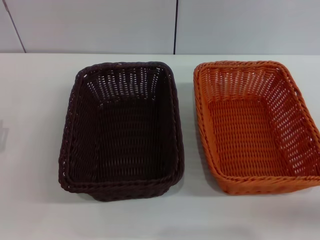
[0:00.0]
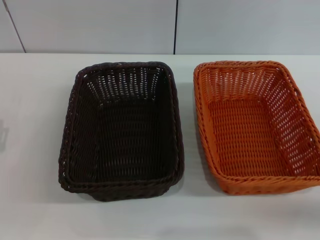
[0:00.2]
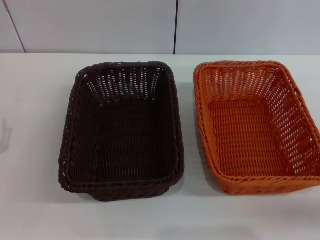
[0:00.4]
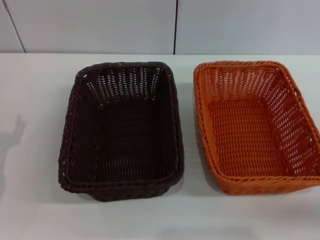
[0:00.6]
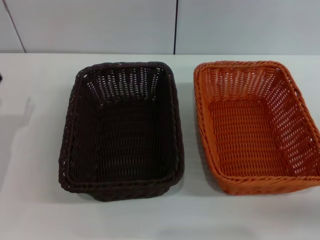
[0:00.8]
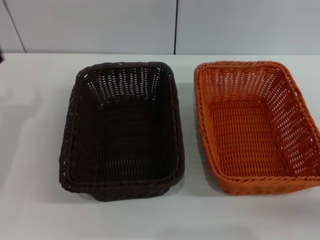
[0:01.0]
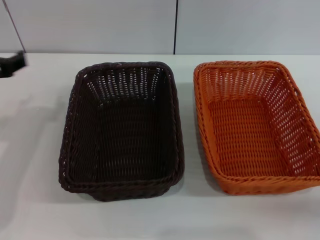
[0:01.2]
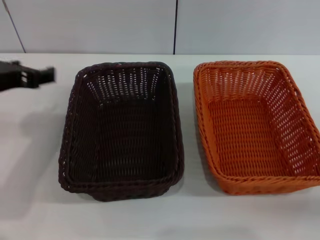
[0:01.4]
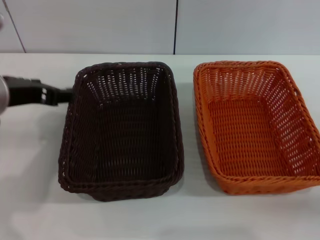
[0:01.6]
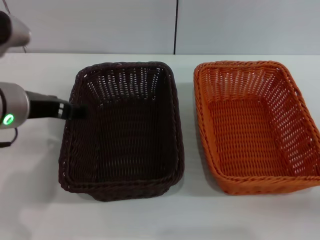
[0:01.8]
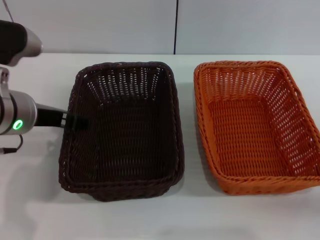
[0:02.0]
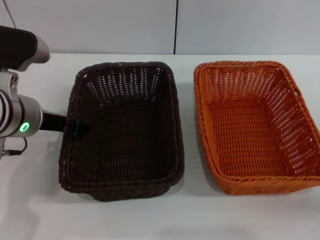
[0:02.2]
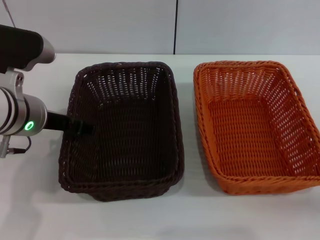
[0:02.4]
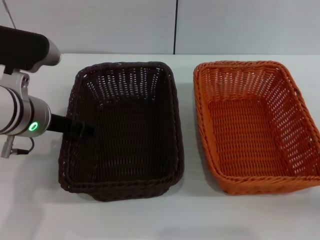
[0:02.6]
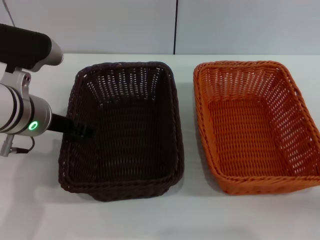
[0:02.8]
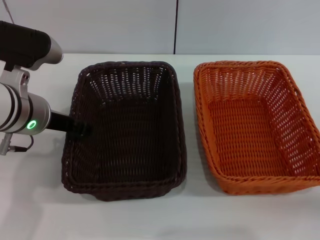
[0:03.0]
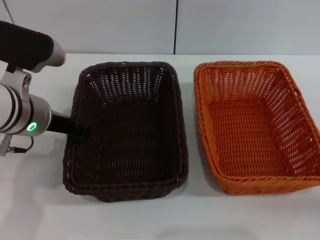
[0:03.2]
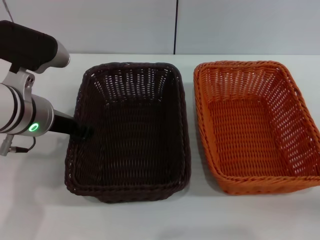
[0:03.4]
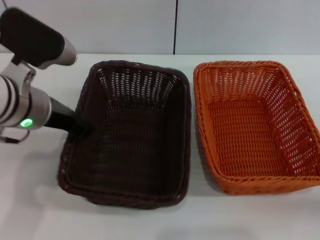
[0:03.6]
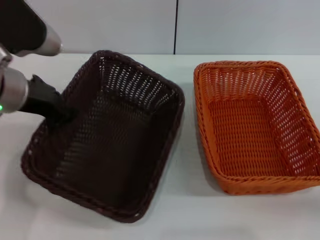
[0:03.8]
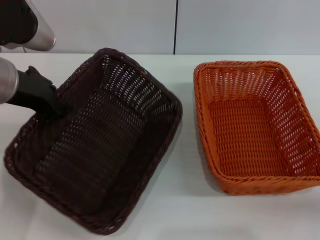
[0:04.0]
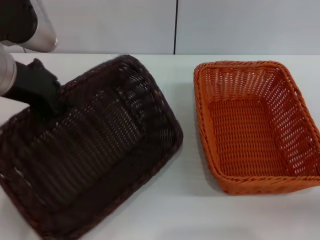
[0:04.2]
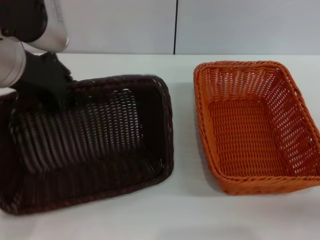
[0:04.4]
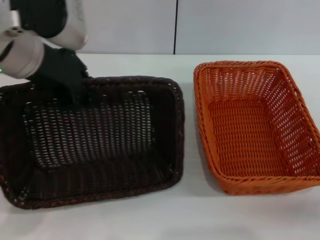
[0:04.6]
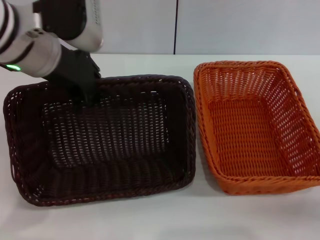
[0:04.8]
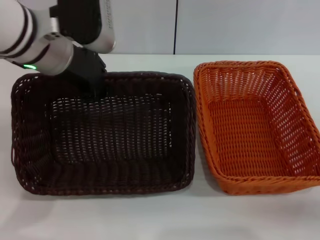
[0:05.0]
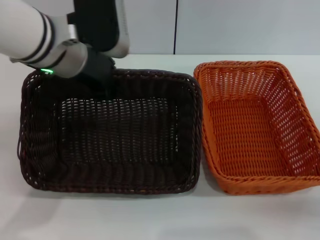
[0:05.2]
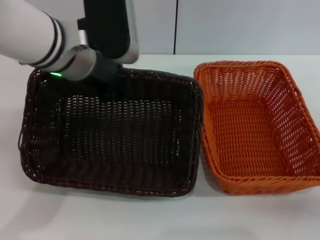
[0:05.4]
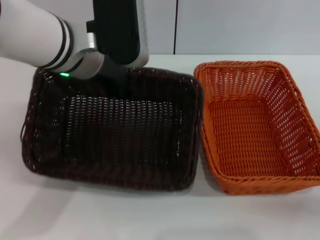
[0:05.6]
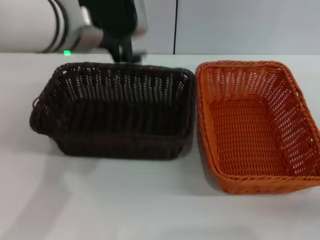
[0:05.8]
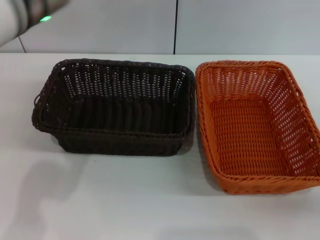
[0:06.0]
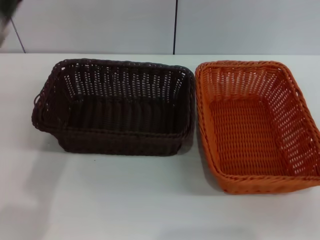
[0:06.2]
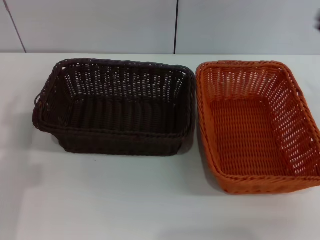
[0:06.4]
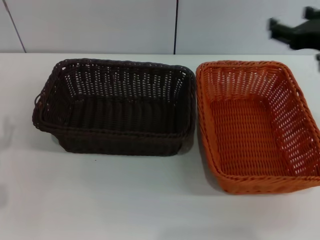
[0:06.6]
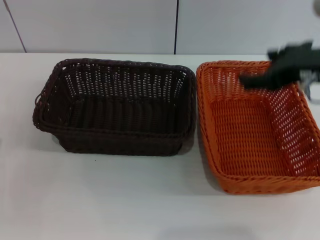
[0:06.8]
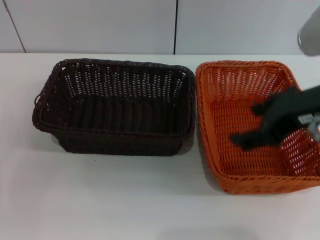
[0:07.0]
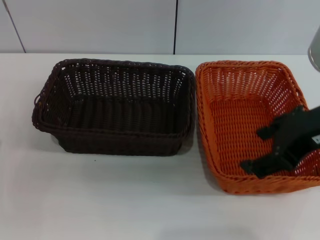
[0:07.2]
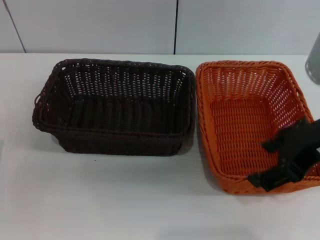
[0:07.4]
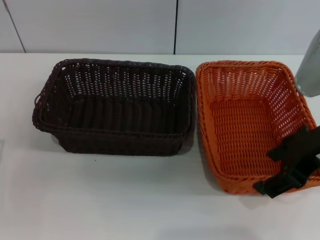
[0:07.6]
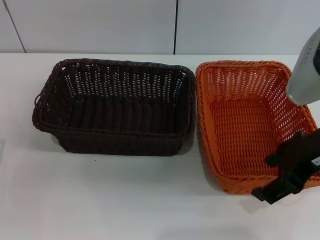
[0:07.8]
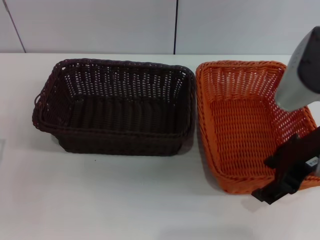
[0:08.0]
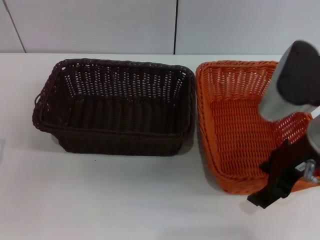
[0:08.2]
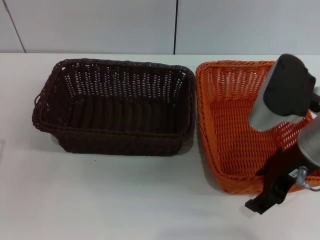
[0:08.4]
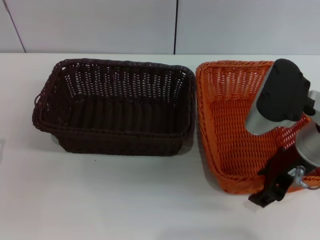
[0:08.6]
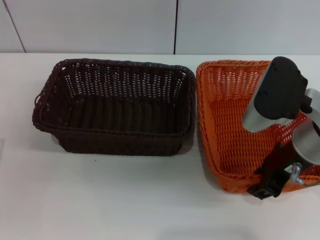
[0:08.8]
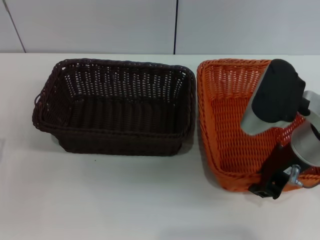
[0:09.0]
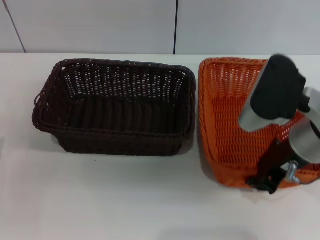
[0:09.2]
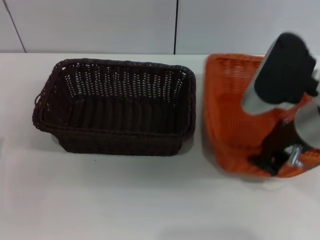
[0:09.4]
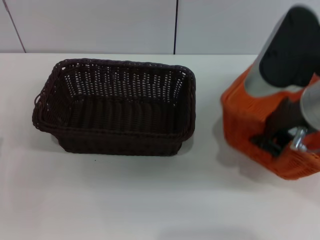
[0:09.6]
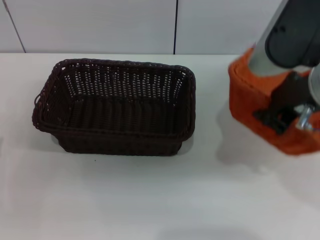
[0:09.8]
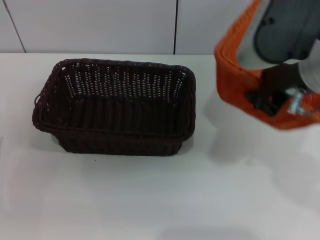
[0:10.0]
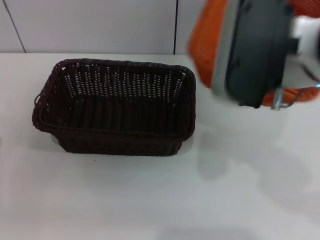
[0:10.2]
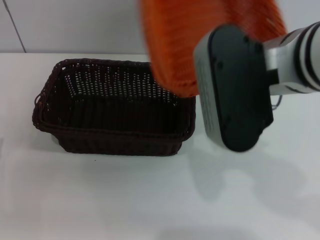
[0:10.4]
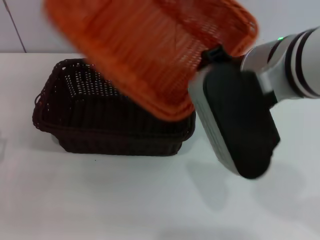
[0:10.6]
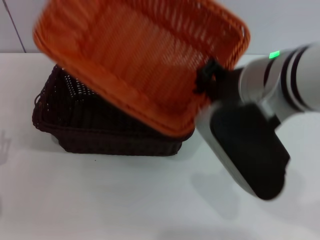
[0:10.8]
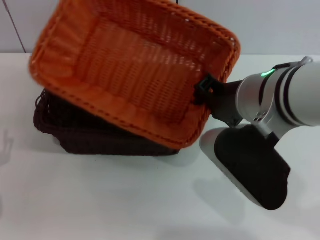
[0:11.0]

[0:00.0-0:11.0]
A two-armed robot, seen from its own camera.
Step, 0:00.0 to 0:03.8: Pick up the dark basket with the left gripper.
Step, 0:04.0 to 0:05.6: Place the dark basket in the center of view with the left gripper.
Step, 0:05.8 to 0:09.8: Pick up the light basket with the right gripper.
0:00.0 to 0:01.6: The left gripper shifts some 20 cm upward and to the right.
0:01.6 to 0:03.2: The left gripper heads downward, covering some 5 cm, and closes its fingers.
0:03.2 to 0:04.8: The left gripper travels upward by some 10 cm.
0:04.8 to 0:06.2: The right gripper goes roughly 5 cm upward, while the left gripper travels backward and to the left by roughly 10 cm, and opens its fingers.
0:06.2 to 0:07.8: The right gripper heads upward and to the left, covering about 20 cm; the left gripper heads downward, to the left and backward, covering approximately 20 cm.
0:07.8 to 0:09.4: The right gripper closes its fingers.
0:09.4 to 0:11.0: The right gripper goes some 5 cm to the left.

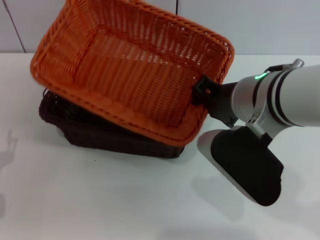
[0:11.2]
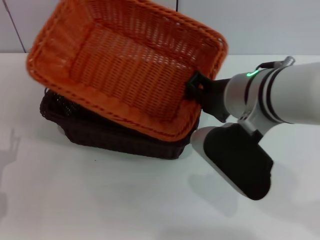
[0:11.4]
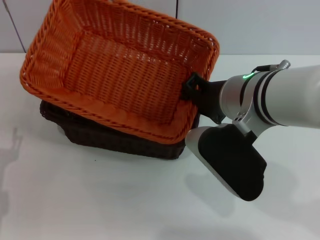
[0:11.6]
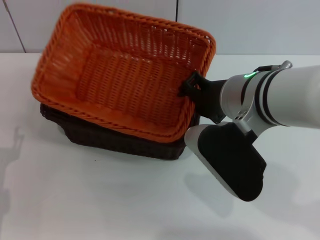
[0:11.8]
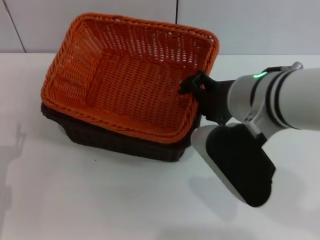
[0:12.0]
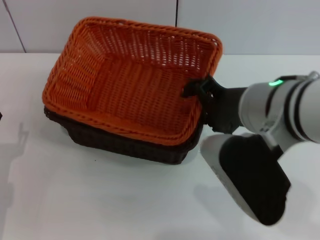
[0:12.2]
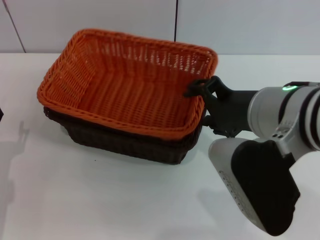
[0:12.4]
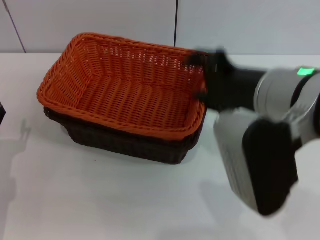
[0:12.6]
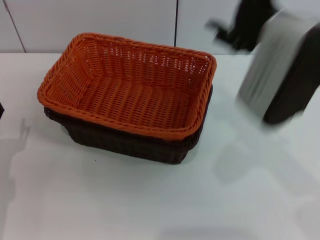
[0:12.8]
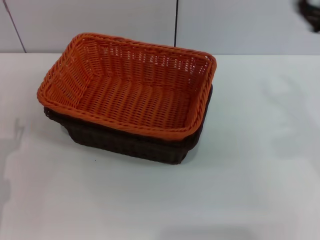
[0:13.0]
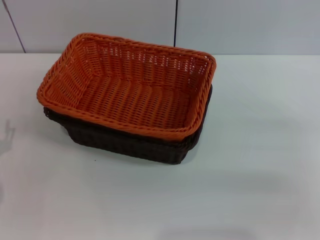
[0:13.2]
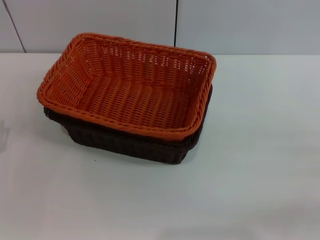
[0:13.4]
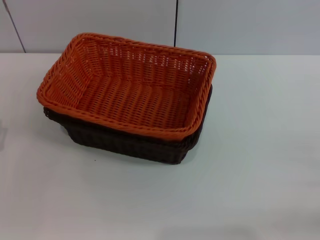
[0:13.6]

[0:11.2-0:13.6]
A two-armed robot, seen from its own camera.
0:11.2 to 0:12.4: The right gripper opens up.
0:12.4 to 0:13.6: The right gripper shifts some 30 cm to the right and downward.
